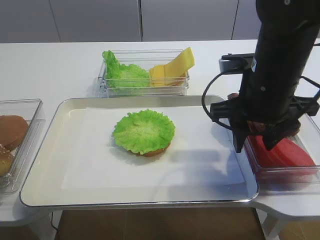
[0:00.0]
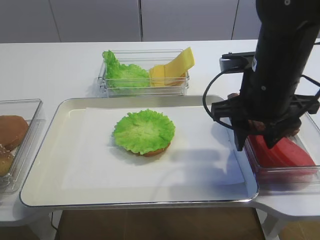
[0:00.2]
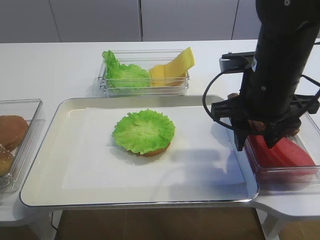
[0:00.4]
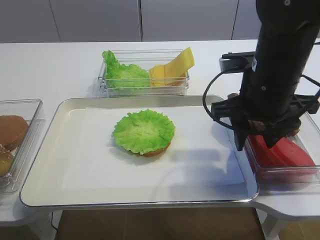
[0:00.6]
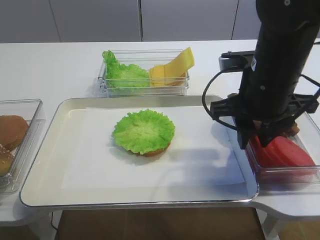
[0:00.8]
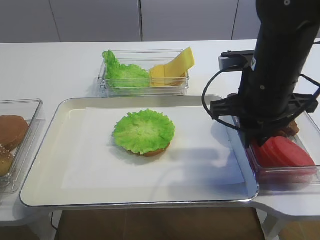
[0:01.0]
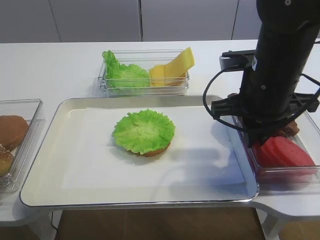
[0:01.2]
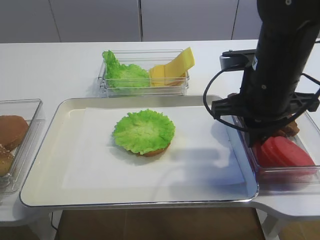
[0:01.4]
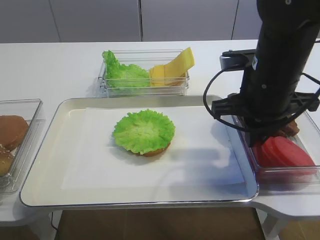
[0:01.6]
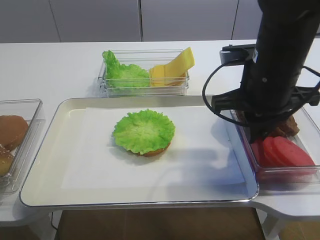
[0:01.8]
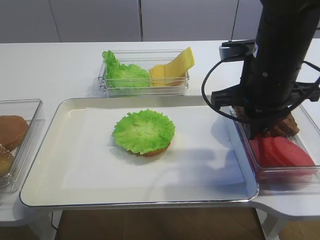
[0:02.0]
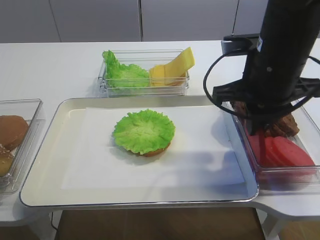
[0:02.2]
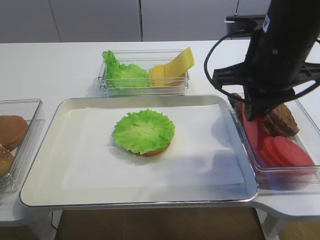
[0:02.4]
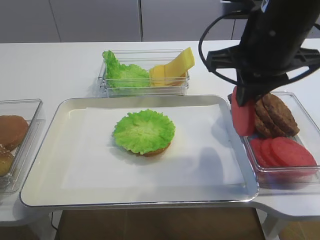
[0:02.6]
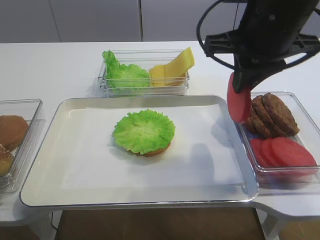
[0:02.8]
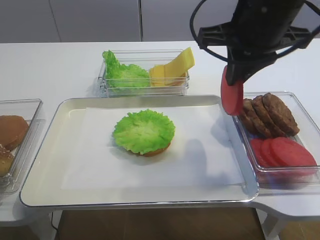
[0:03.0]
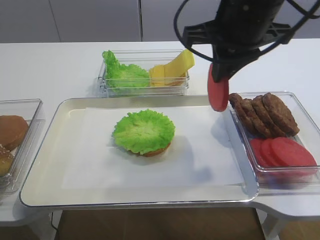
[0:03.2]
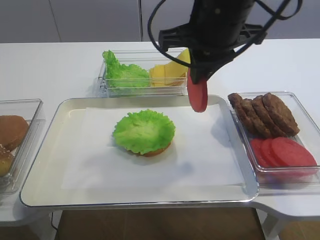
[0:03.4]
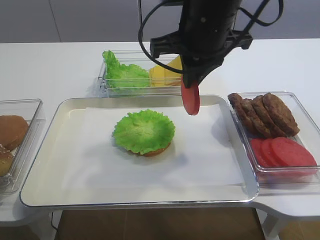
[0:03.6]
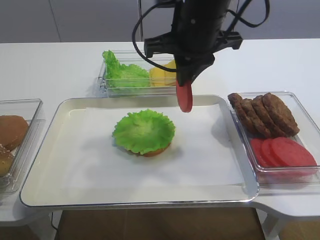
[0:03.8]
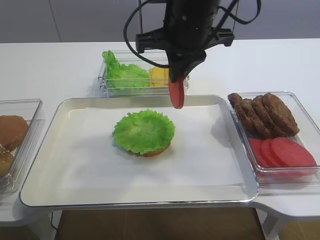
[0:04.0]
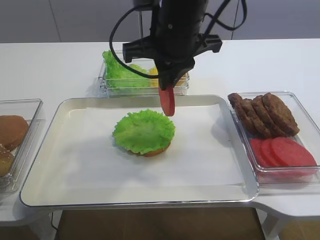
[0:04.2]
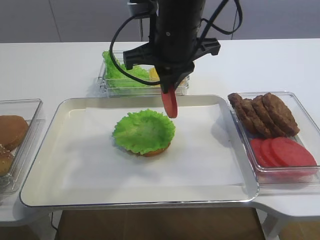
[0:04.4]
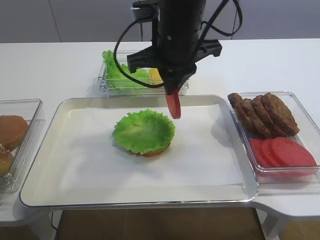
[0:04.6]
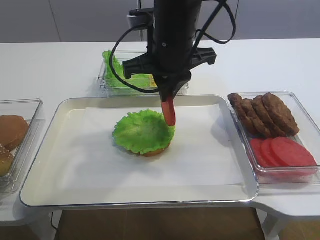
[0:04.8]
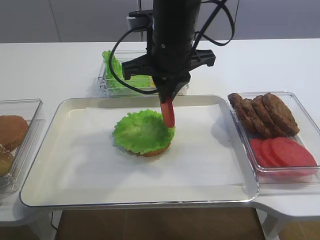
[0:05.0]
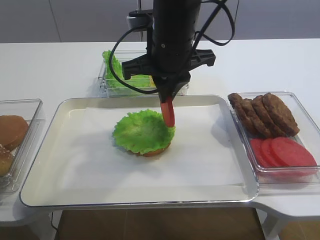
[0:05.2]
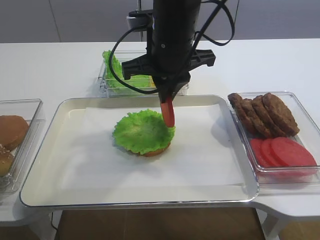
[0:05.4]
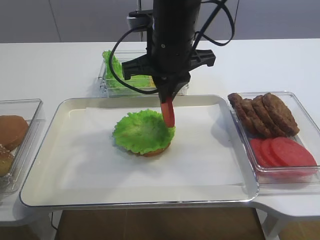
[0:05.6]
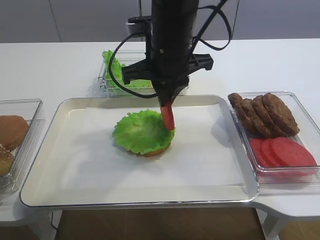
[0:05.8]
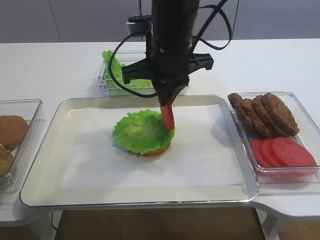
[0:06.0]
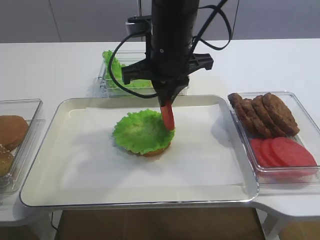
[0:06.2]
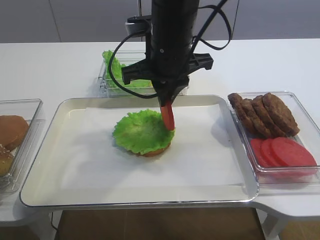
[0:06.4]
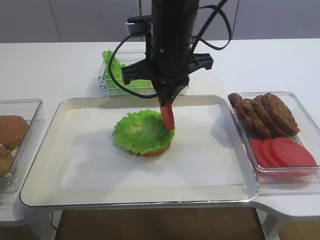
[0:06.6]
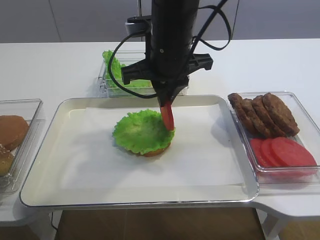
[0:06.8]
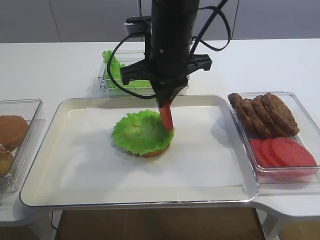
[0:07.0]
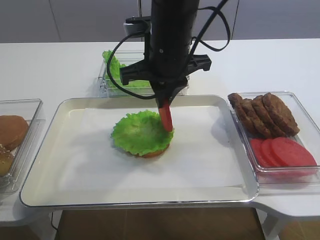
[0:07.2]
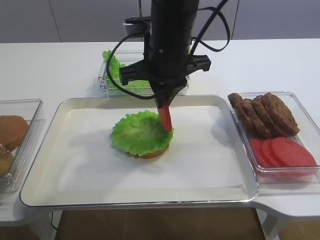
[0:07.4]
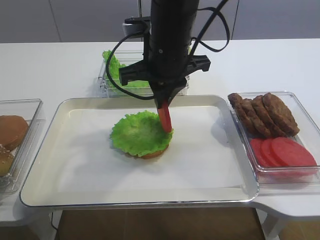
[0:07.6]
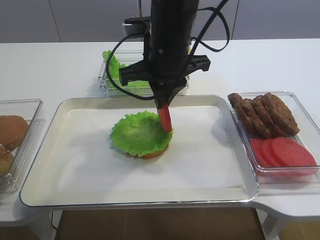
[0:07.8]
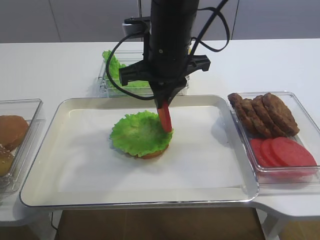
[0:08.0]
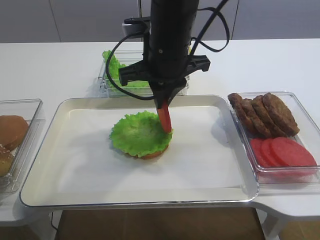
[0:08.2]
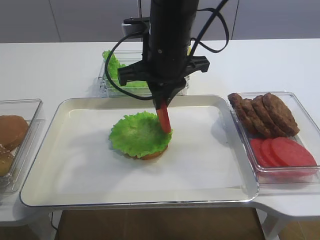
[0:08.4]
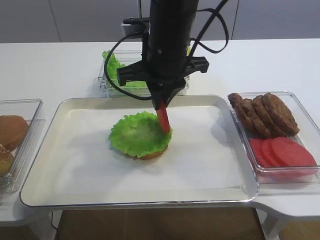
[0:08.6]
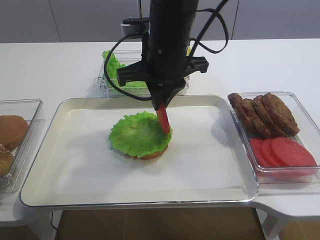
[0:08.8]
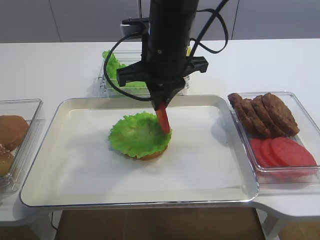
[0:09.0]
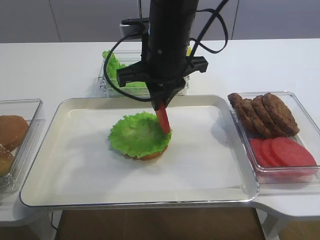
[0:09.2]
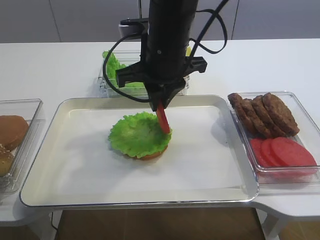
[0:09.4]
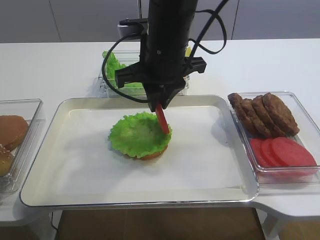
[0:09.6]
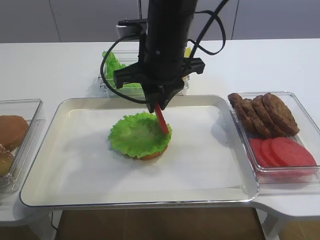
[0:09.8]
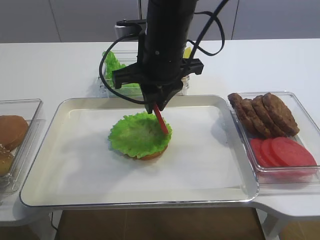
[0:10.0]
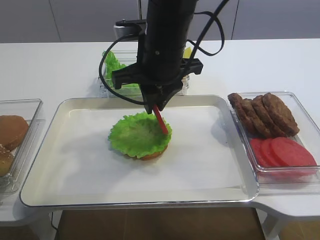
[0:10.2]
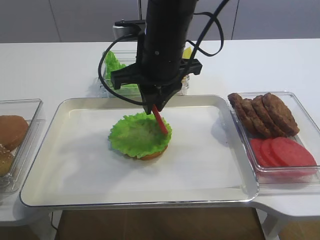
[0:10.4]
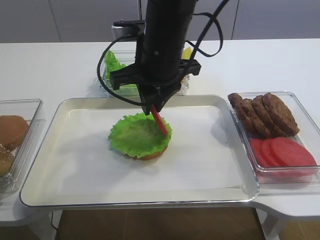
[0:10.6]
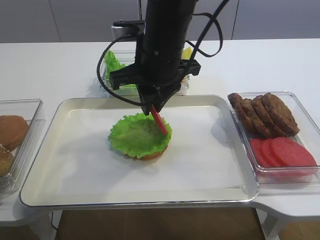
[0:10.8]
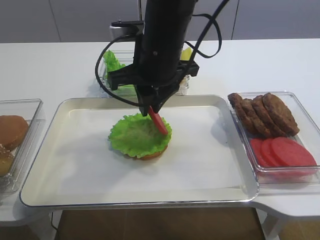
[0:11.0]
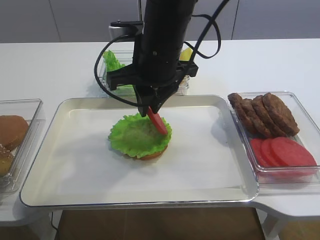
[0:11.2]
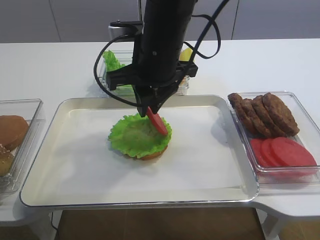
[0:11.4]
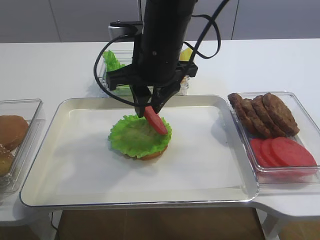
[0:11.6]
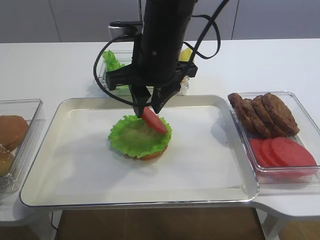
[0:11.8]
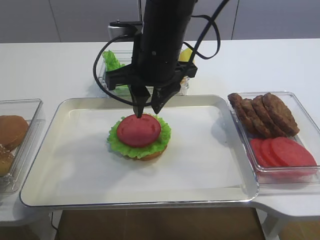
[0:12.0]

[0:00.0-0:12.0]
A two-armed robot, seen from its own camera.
Step, 0:00.0 to 0:02.4: Pick up the tomato slice with the right gripper.
0:00.0 to 0:01.6: The right gripper closes.
0:01.6 to 0:03.0: The right gripper moves upward, approximately 10 cm.
0:03.0 to 0:04.4: The right gripper moves to the left, approximately 10 cm.
0:04.4 to 0:06.0: The grippers stay close to where they were, moving slightly.
0:06.0 to 0:07.6: The two grippers keep their place.
0:07.6 to 0:09.0: Both grippers stay about where they are.
0:09.0 to 0:10.4: The grippers make only small movements.
0:10.4 to 0:12.0: The two grippers keep their place.

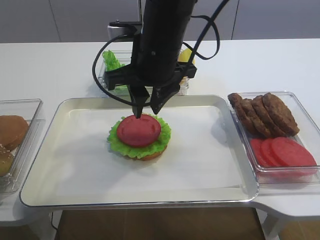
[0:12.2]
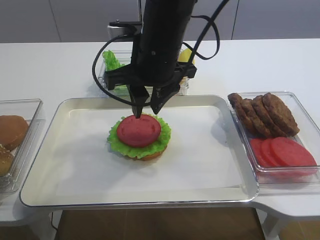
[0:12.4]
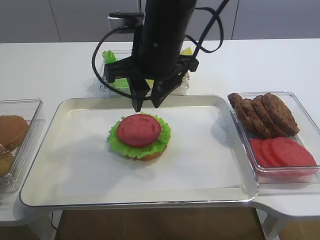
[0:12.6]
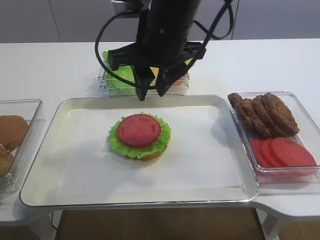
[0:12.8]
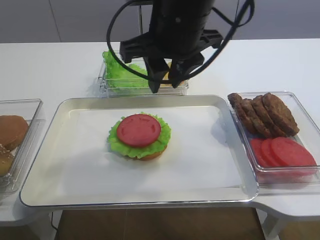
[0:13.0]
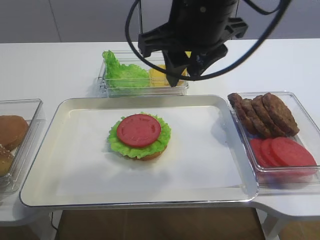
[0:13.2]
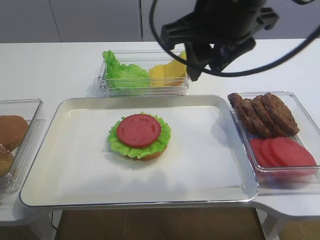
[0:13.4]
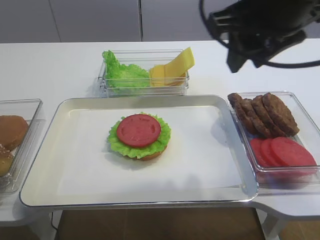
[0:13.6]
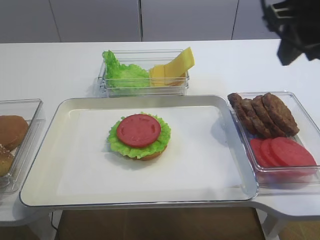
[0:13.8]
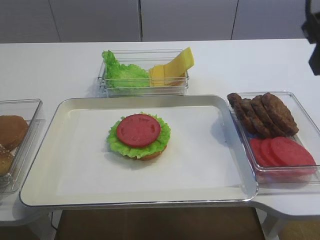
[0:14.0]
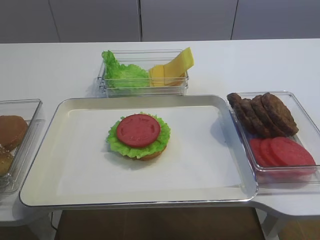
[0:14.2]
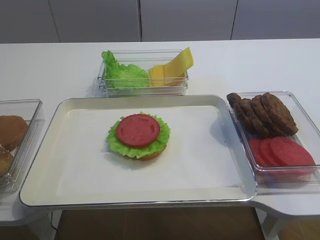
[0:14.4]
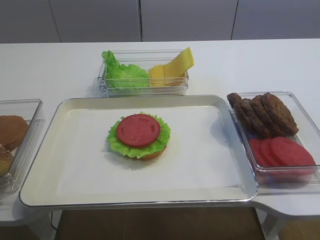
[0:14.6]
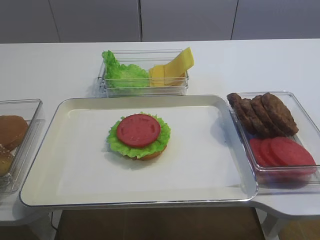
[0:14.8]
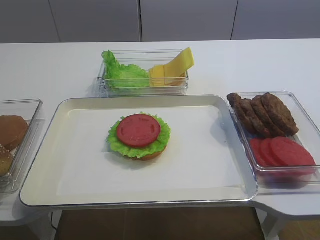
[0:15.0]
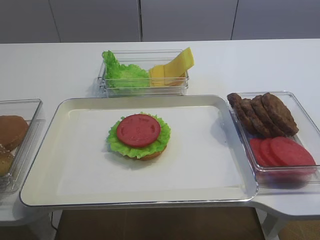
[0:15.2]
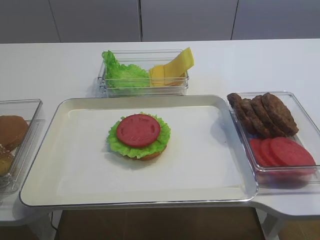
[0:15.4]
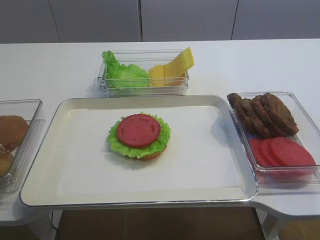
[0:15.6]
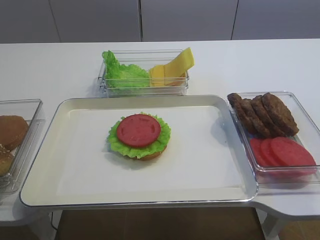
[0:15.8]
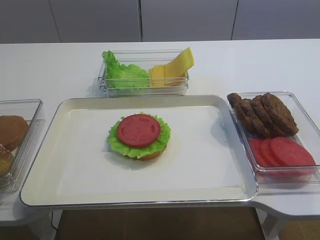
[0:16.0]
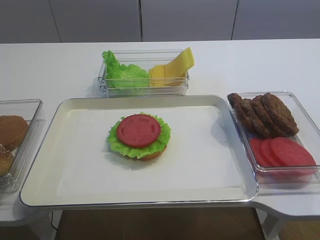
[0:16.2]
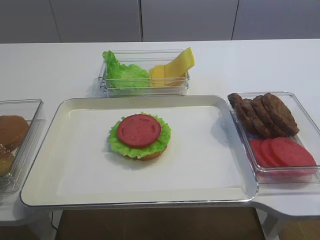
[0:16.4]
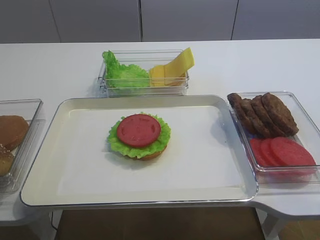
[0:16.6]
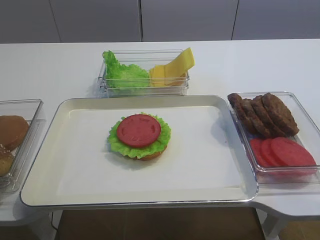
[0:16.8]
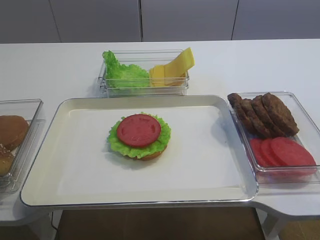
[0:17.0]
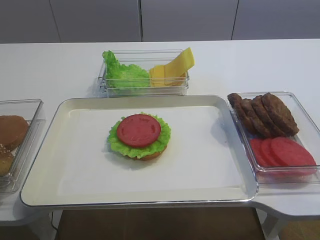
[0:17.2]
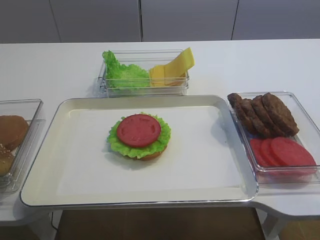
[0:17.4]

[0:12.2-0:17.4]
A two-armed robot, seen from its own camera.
0:12.2 to 0:14.0: The right gripper heads to the right, backward and upward, covering roughly 25 cm.
0:14.0 to 0:15.6: The right gripper shifts about 25 cm backward, downward and to the right.

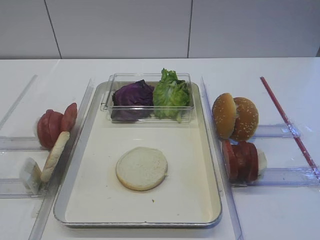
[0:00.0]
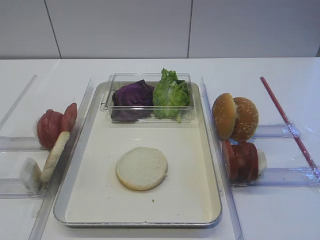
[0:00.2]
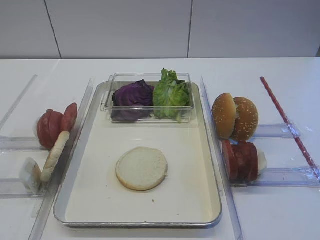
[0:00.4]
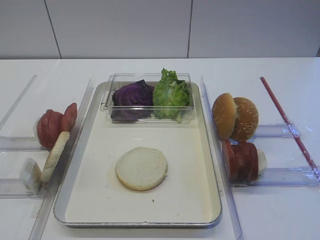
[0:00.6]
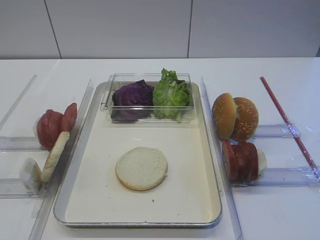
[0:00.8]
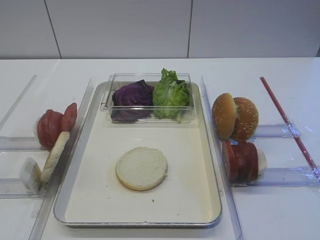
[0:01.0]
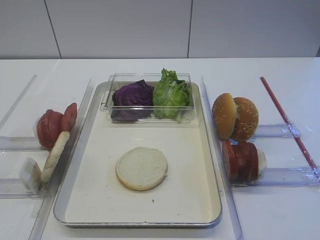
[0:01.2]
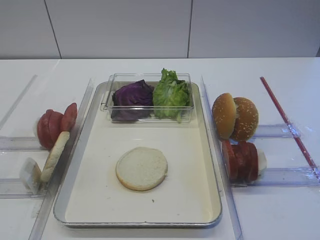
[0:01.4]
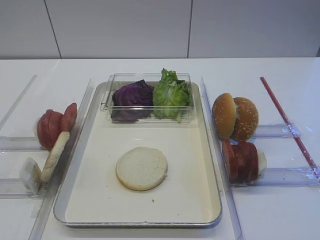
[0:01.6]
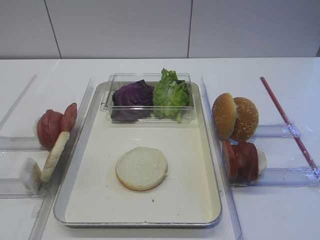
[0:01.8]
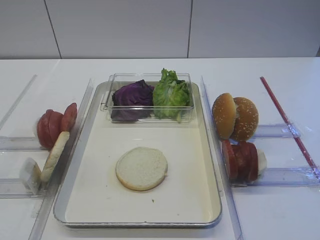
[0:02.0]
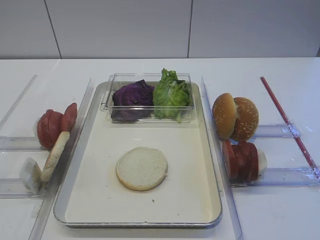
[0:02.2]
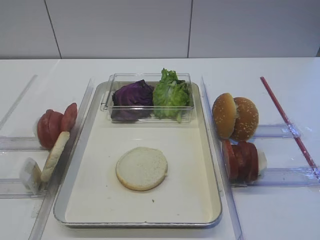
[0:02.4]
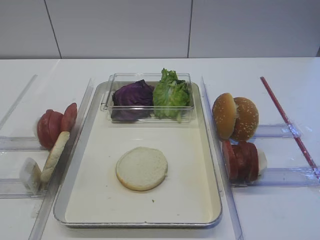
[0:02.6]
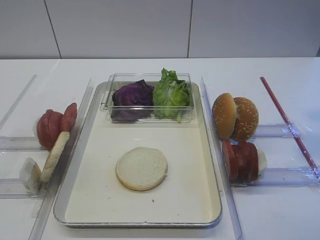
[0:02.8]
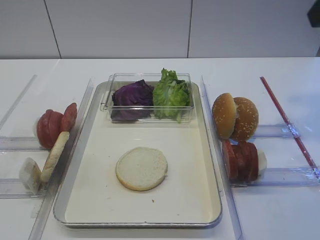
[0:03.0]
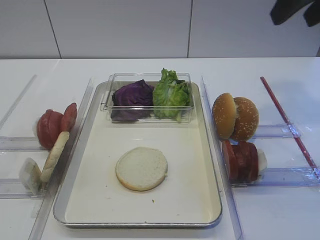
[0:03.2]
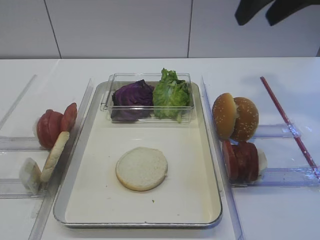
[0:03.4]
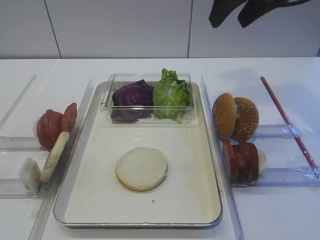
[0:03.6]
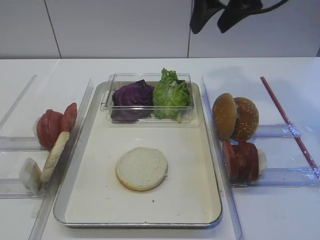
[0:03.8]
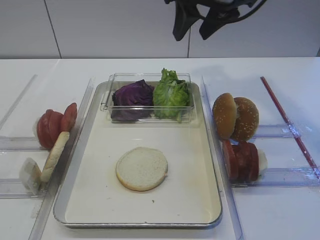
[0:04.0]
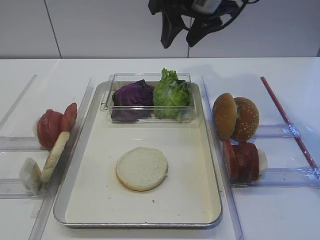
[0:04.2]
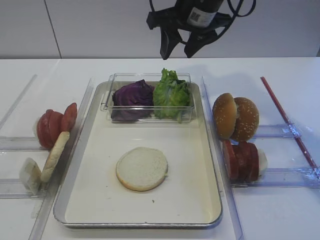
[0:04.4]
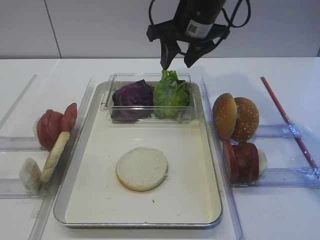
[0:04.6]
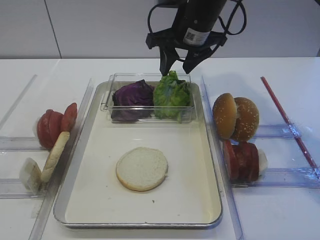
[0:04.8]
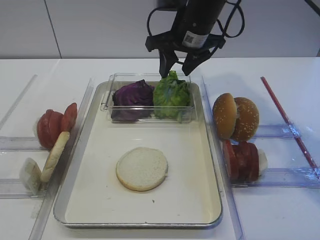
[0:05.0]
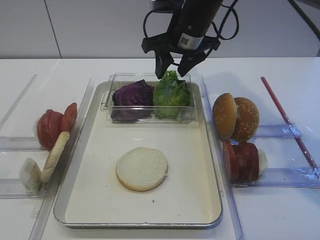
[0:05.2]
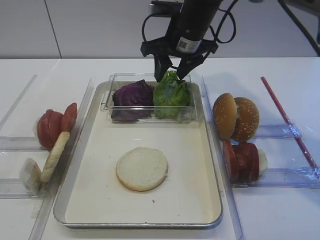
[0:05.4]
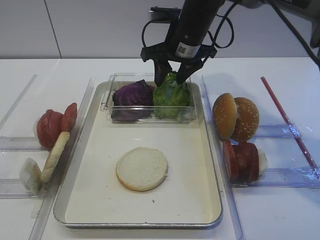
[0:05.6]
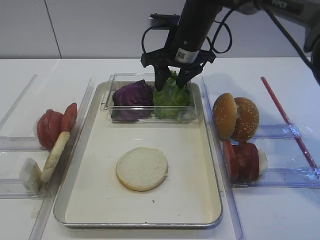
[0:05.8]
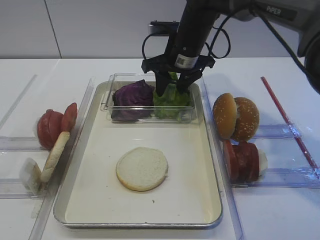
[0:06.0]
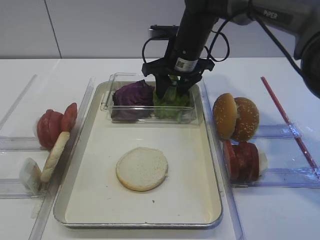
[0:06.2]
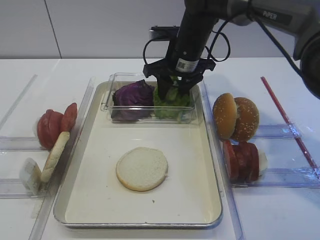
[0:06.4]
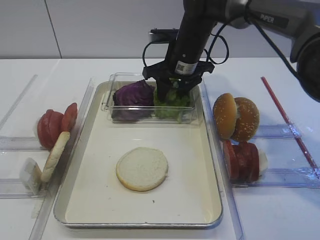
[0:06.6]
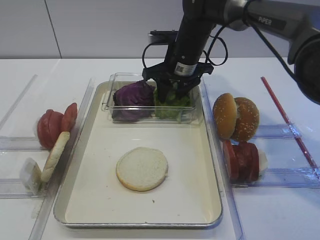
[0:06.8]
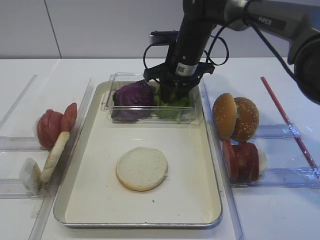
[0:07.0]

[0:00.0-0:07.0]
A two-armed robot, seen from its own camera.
0:02.8 to 0:04.2: The right gripper goes some 25 cm forward and to the left.
0:04.2 to 0:05.6: The right gripper goes approximately 10 cm downward.
0:05.6 to 0:07.0: There are only small adjustments of the grippers.
